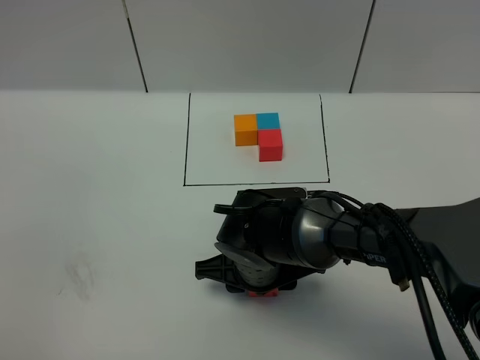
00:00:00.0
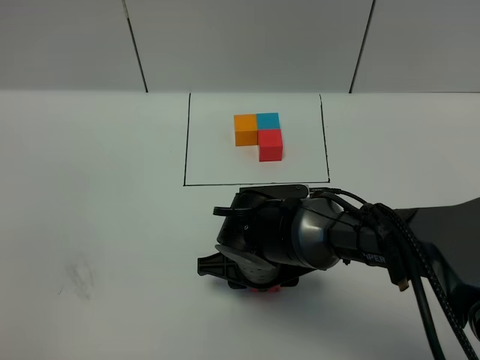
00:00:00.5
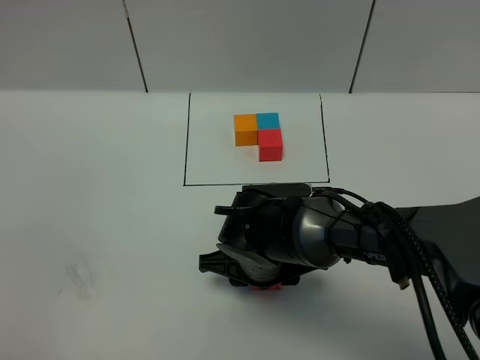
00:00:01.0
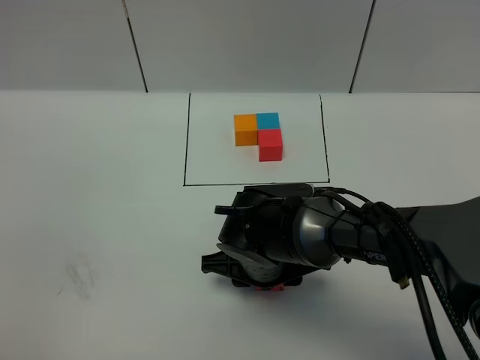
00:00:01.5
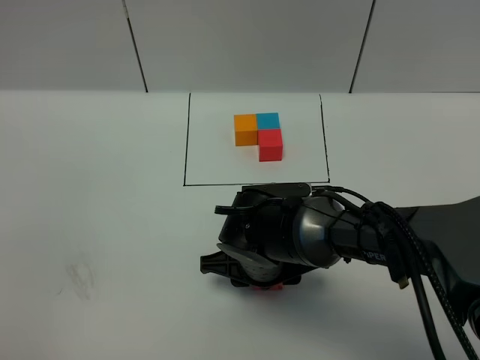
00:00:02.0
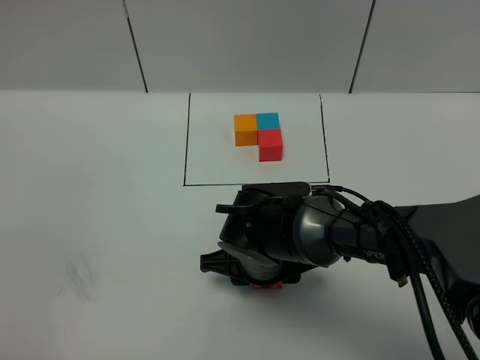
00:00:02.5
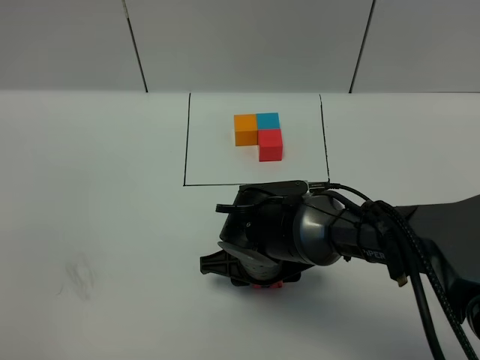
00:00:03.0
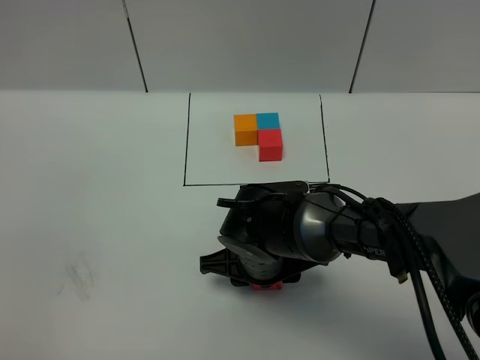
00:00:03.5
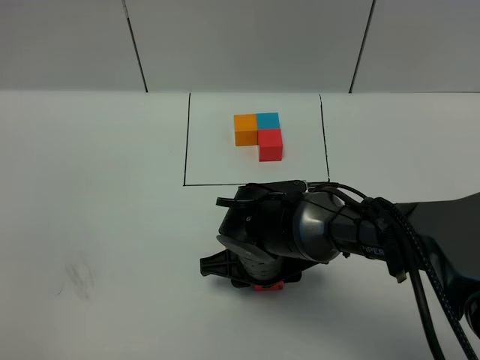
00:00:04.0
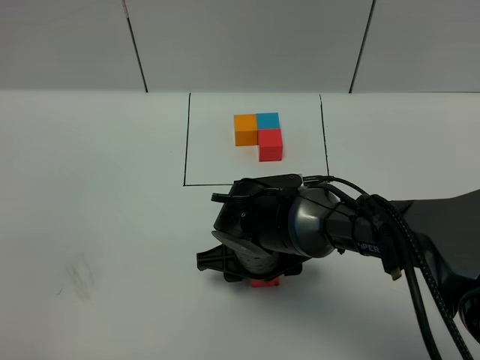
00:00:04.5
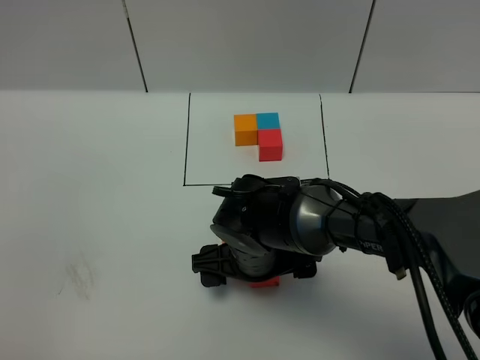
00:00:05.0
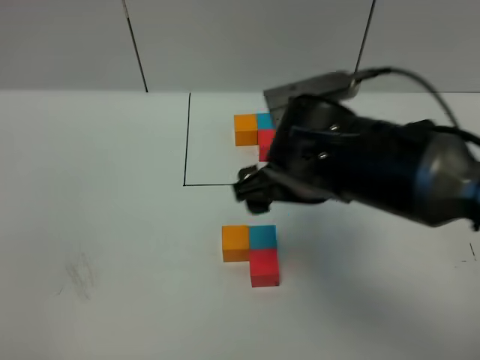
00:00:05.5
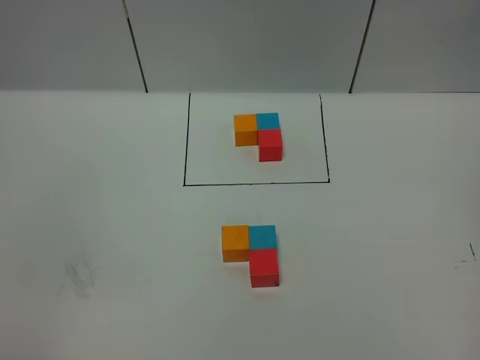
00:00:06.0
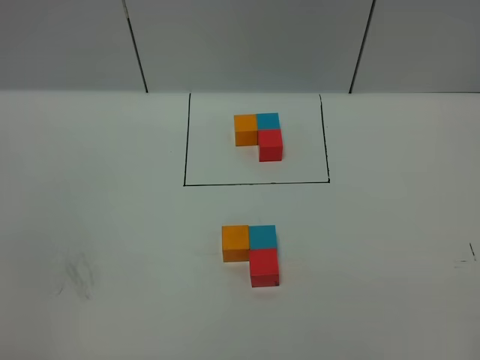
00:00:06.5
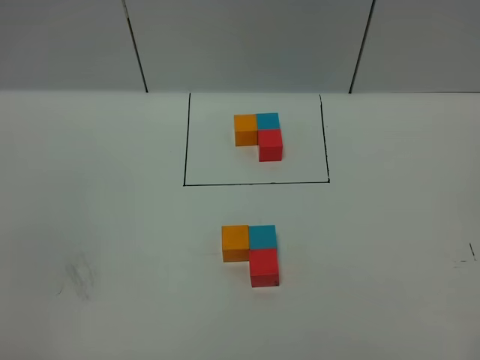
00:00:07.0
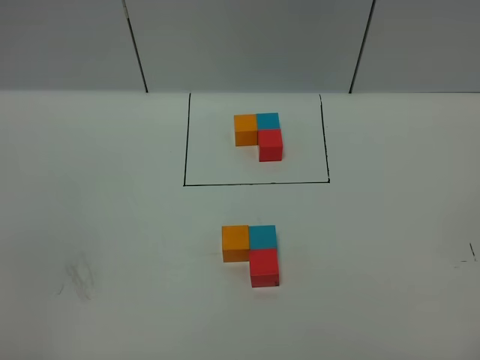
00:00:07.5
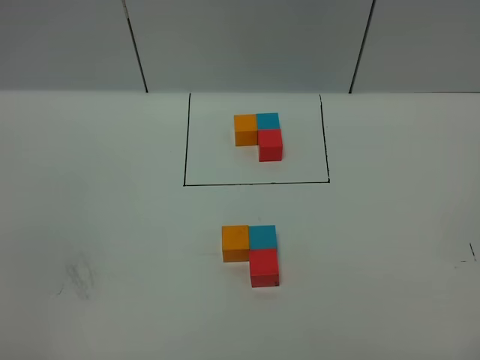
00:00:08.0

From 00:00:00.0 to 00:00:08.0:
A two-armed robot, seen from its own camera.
Task of the whole recording: According to the building block template in front, assemble the scattered blocks together.
Step, from 00:00:00.0 to 00:00:04.5: Put the red cube in the front of the blue cube.
From 00:00:00.0 to 00:00:04.0: The two grippers keep their place.
From 00:00:04.0 to 00:00:06.0: The right gripper shifts roughly 50 cm upward and to the right, and opens up.
